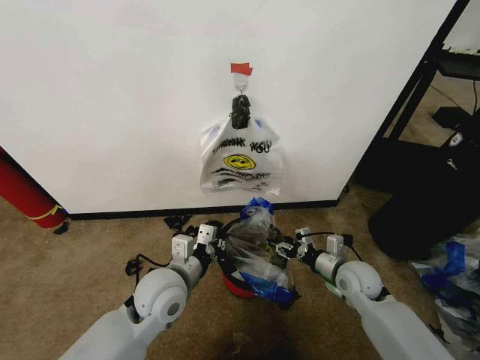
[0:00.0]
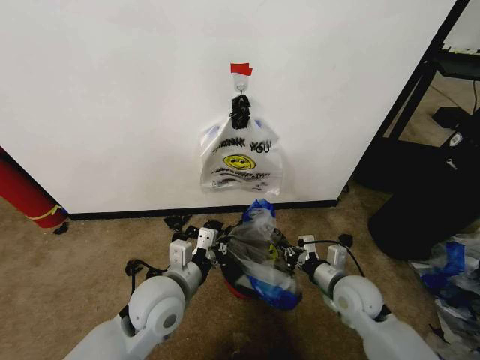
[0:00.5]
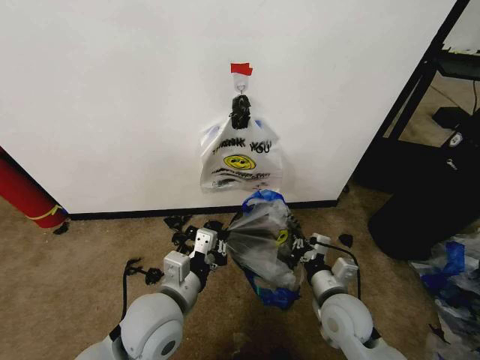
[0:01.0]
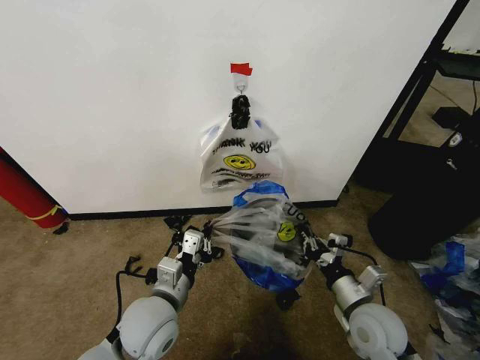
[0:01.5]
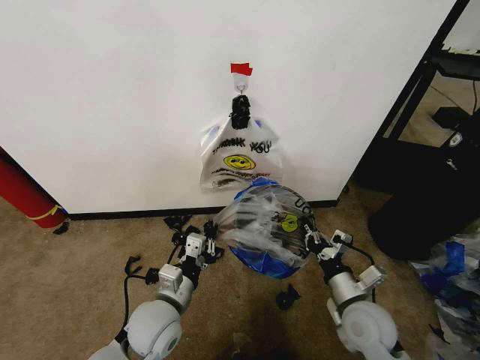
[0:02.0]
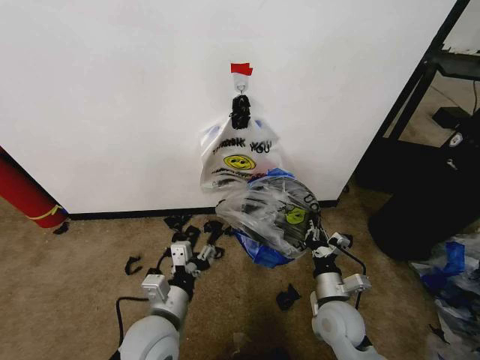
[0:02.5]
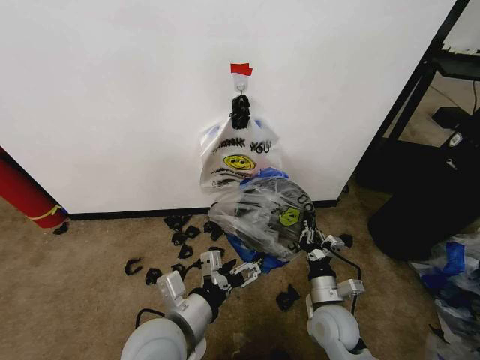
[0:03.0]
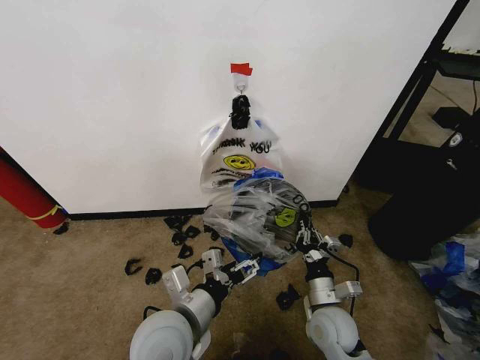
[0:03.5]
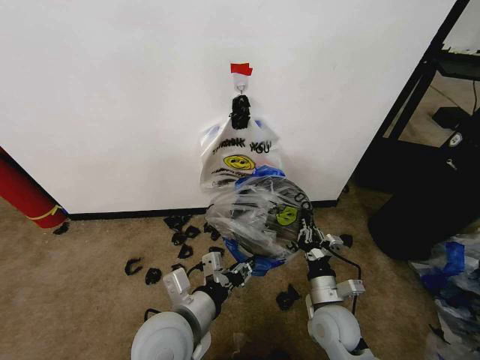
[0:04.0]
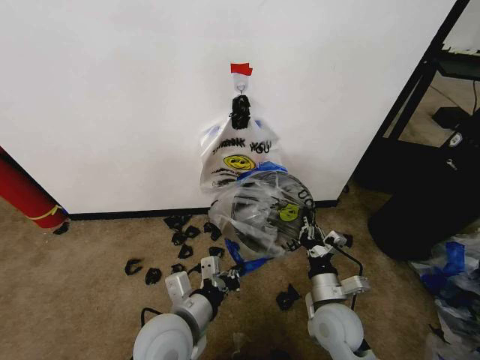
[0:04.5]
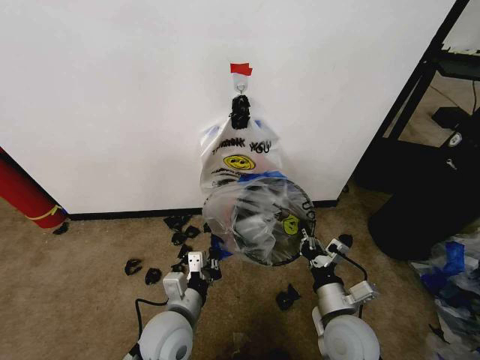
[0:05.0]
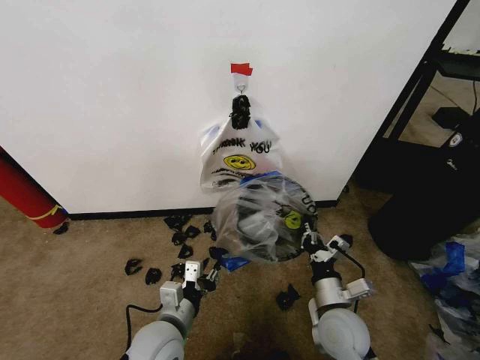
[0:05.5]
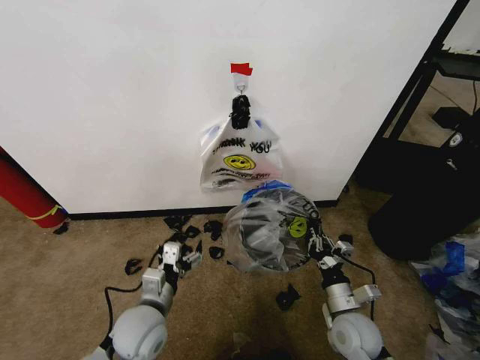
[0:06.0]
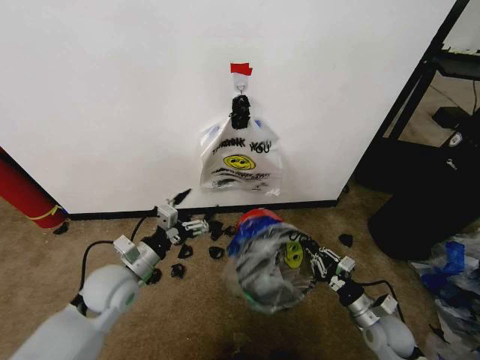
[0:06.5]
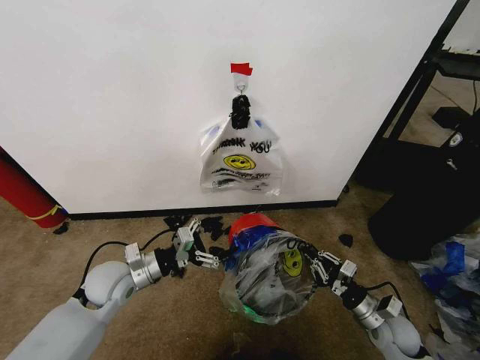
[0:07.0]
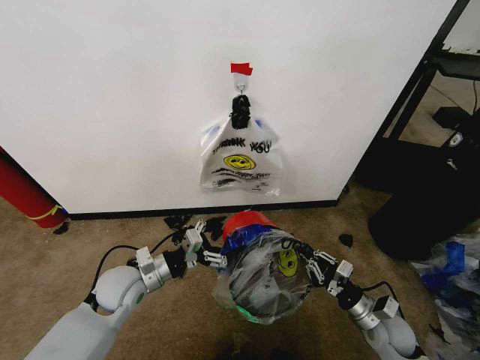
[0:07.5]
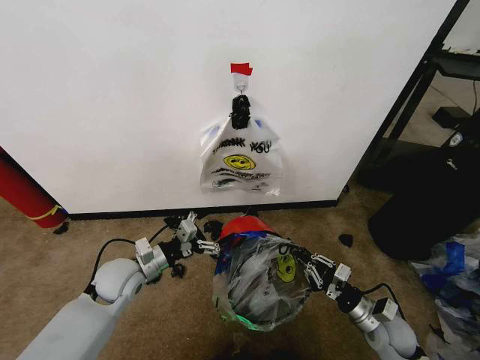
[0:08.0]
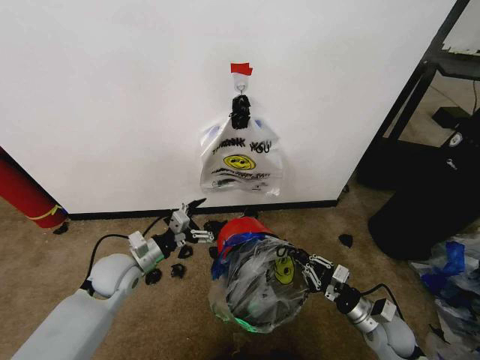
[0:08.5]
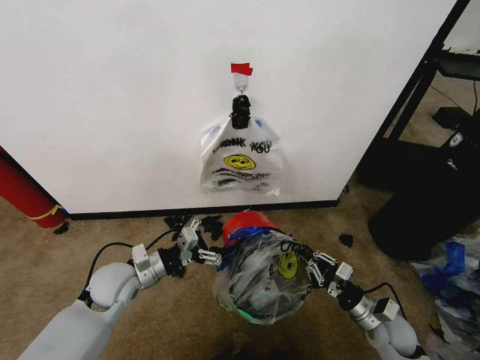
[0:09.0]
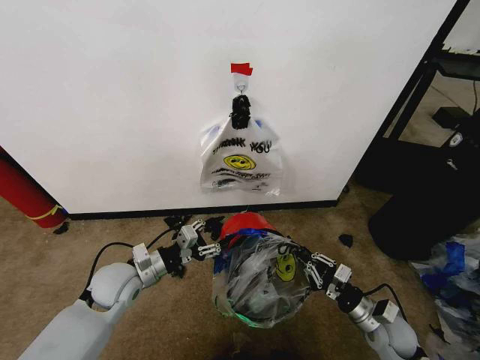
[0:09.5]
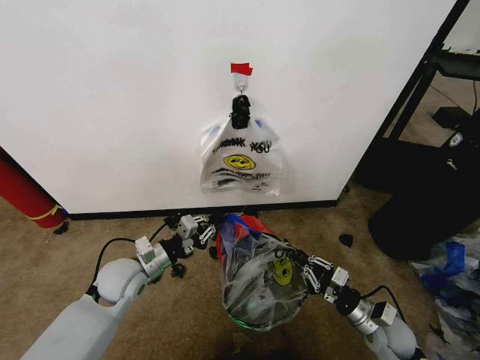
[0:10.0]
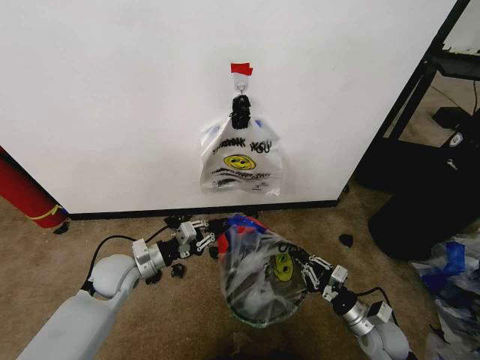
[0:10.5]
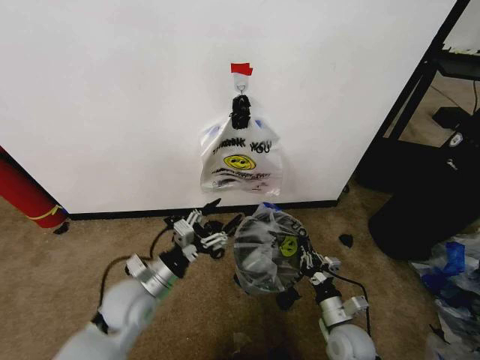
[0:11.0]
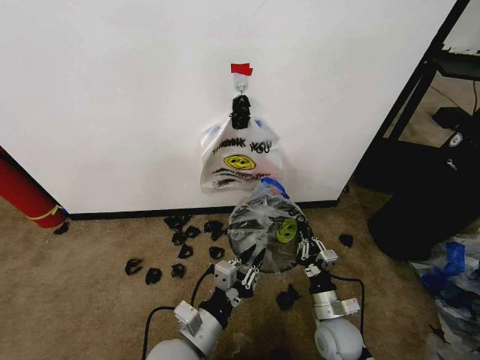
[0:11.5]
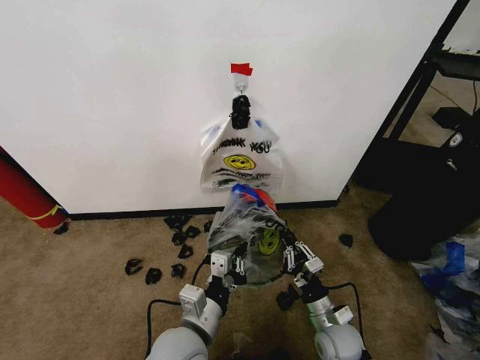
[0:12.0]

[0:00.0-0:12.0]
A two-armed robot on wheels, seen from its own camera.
Task of the whole recording: Pick up the garbage bag from the wall and place it over the trash bin.
0:00.0 to 0:02.0: The left gripper travels downward by roughly 5 cm; the right gripper shifts about 10 cm backward, and closes.
0:02.0 to 0:04.0: The left gripper travels upward by some 5 cm, and opens up, while the right gripper shifts by about 5 cm.
0:04.0 to 0:06.0: The left gripper is displaced downward and to the left by some 10 cm, and opens its fingers.
0:06.0 to 0:08.0: The right gripper moves to the right, approximately 10 cm; the left gripper heads forward and to the left, covering approximately 10 cm.
0:08.0 to 0:10.0: The left gripper closes up.
0:10.0 to 0:12.0: The right gripper travels to the left by roughly 10 cm; the left gripper is displaced to the right and backward by some 20 cm, and opens, then closes again.

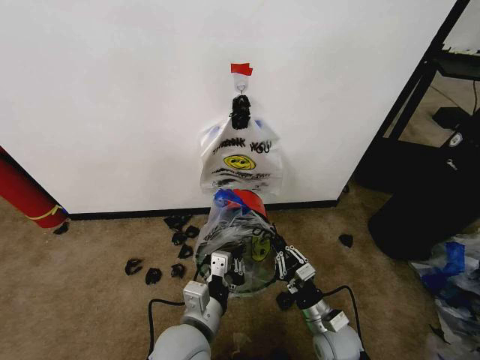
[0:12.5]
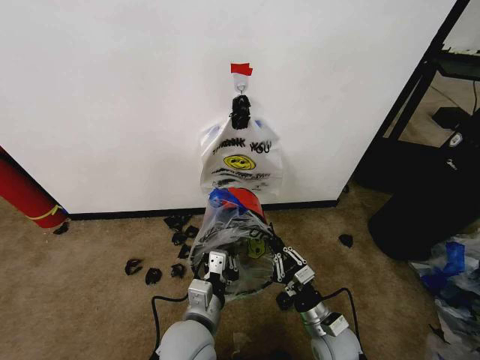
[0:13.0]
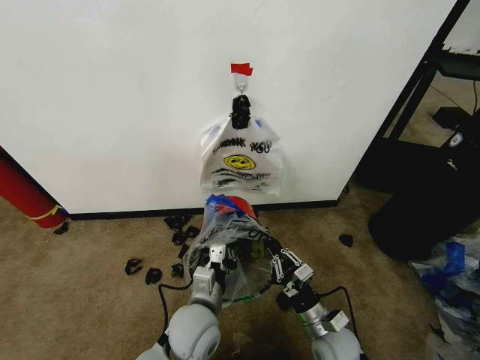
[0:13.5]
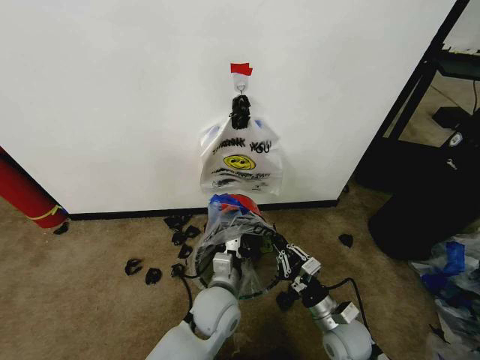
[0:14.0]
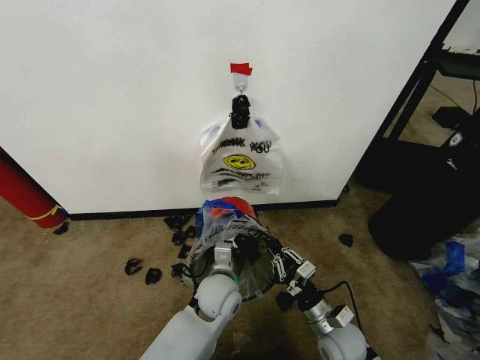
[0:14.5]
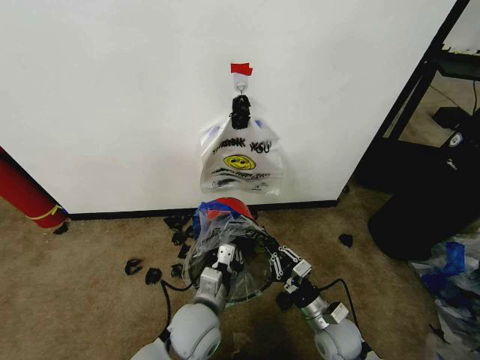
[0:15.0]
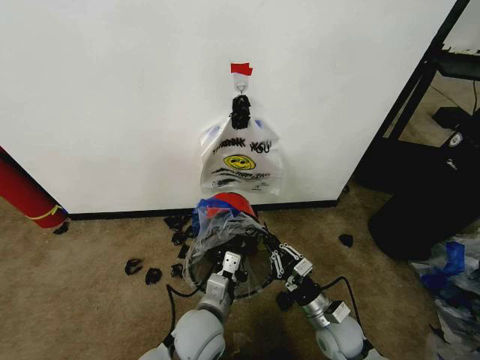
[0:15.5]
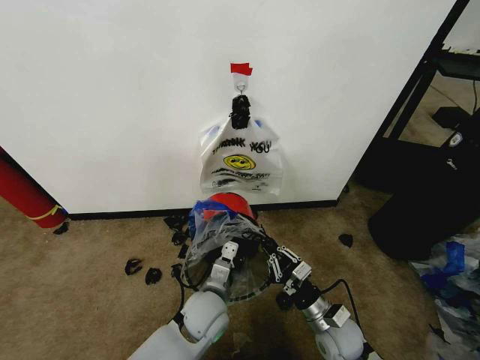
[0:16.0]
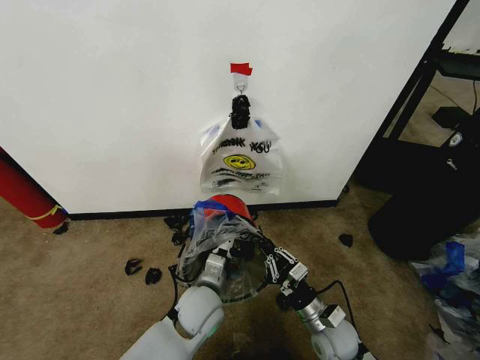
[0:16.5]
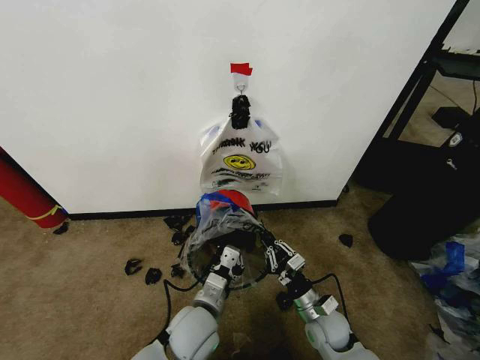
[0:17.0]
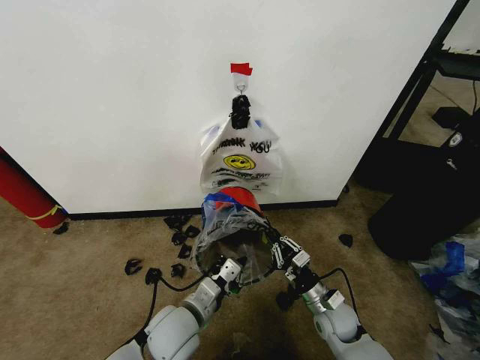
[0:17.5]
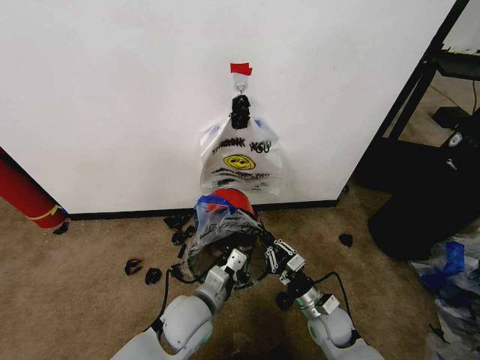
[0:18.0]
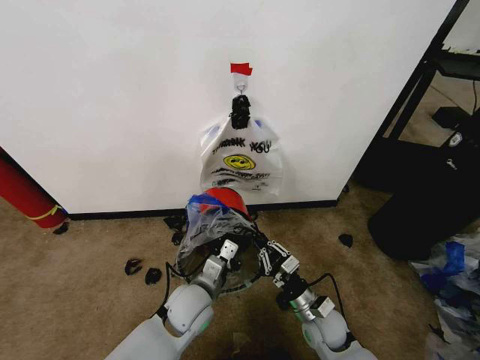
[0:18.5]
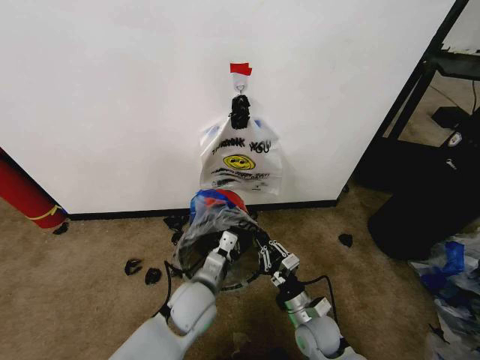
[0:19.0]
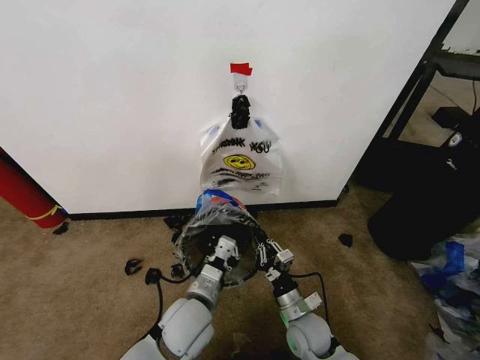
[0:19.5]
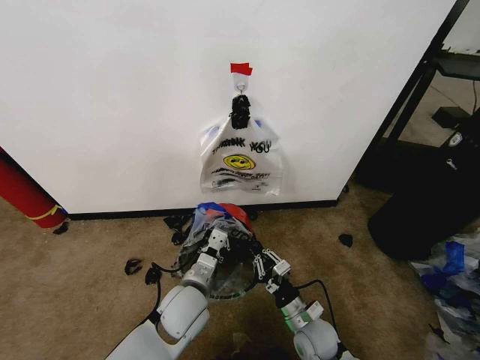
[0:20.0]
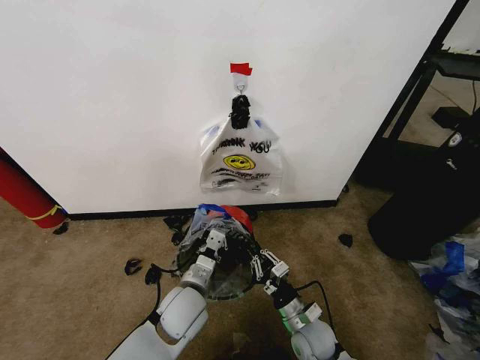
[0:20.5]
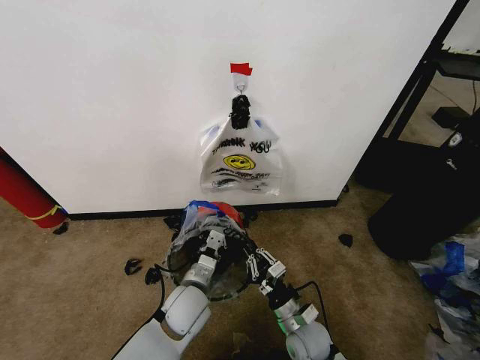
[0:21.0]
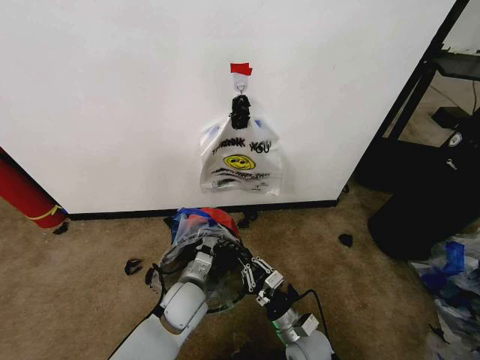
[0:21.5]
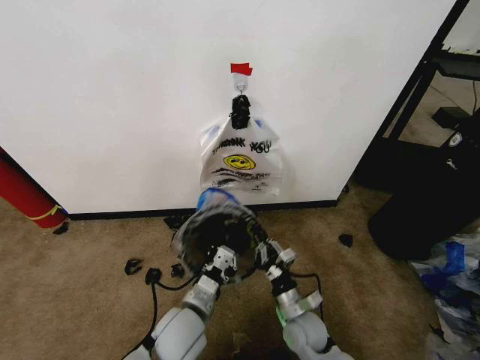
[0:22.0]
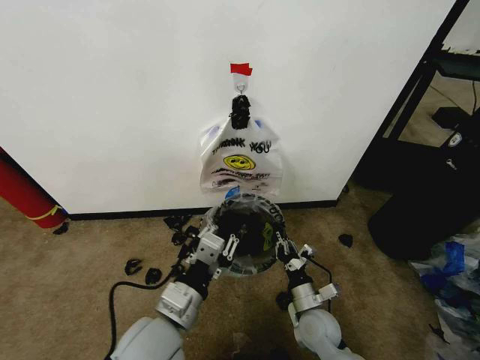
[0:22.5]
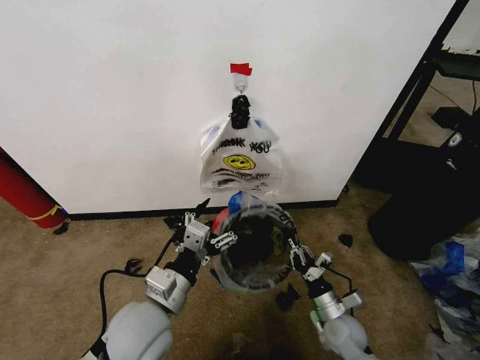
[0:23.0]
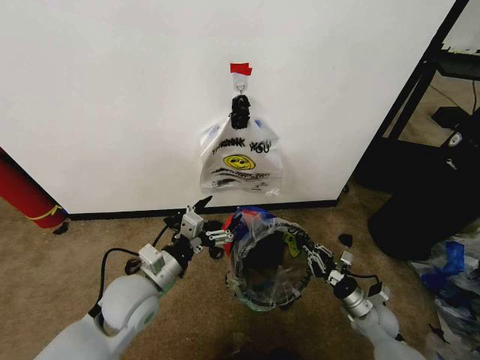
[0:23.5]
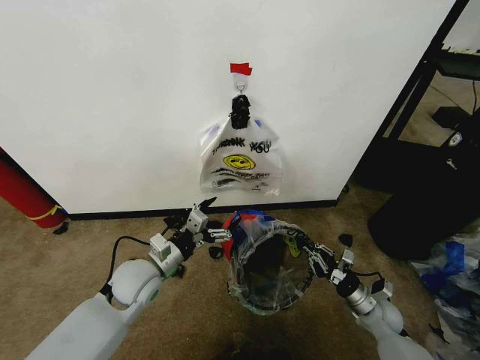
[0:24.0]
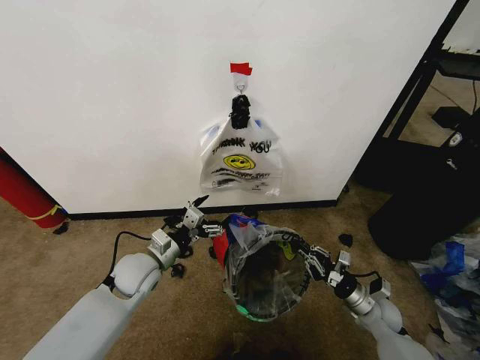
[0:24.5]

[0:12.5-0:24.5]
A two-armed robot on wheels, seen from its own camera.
Task of the whole recording: Pick up the garbage bag from the wall and place it over the trash bin.
0:12.5 to 0:14.5: The left gripper goes roughly 15 cm forward, downward and to the right.
0:20.5 to 0:22.5: The left gripper heads backward and upward, covering some 10 cm.
0:22.5 to 0:24.5: The left gripper travels forward, to the left and downward by approximately 20 cm, and opens up, while the right gripper moves to the right, approximately 15 cm.

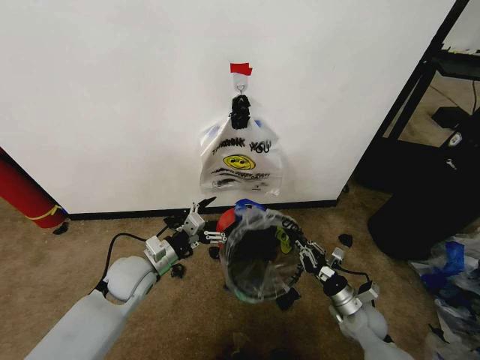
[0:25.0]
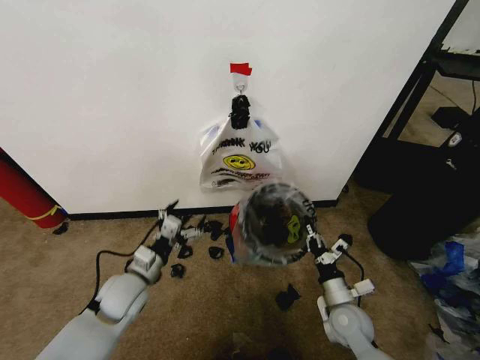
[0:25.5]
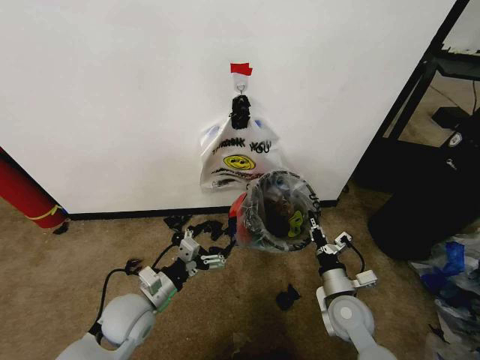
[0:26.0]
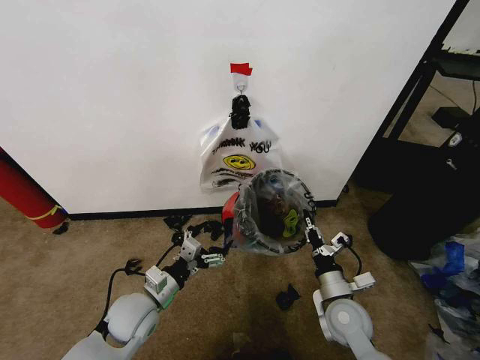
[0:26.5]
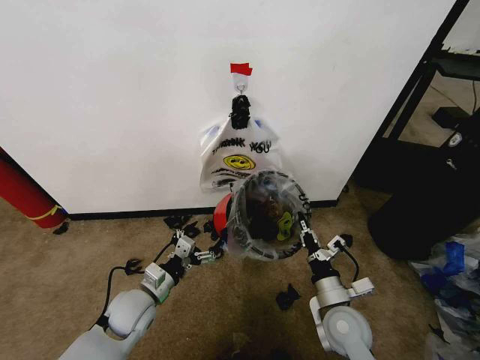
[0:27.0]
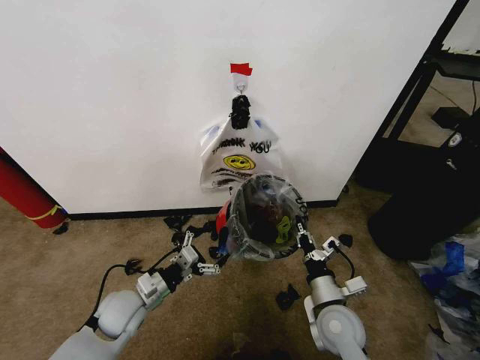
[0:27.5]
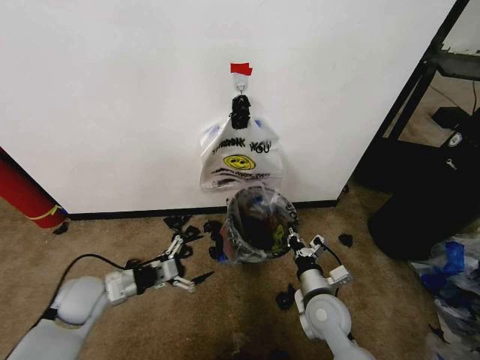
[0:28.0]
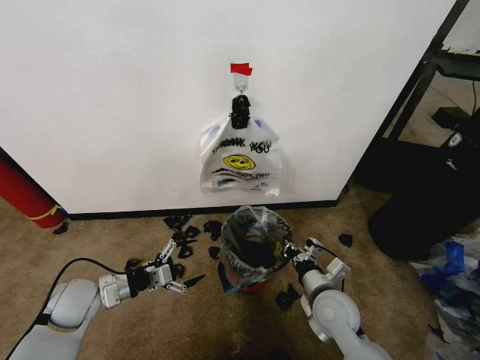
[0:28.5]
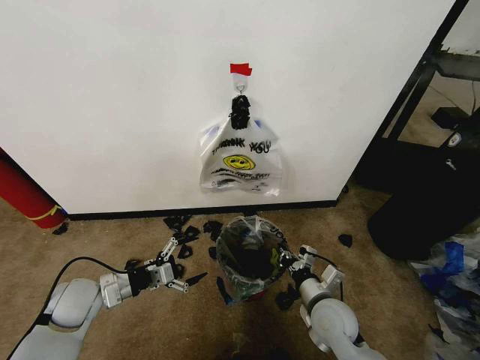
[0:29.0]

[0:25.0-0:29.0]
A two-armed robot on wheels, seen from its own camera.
Task of the whole recording: Pick up the garbage bag from the wall and place it over the trash bin.
0:25.0 to 0:27.0: The right gripper goes approximately 15 cm upward and to the left. Meanwhile the left gripper goes about 10 cm downward and backward.
0:27.0 to 0:29.0: The left gripper heads to the left, covering roughly 10 cm.
